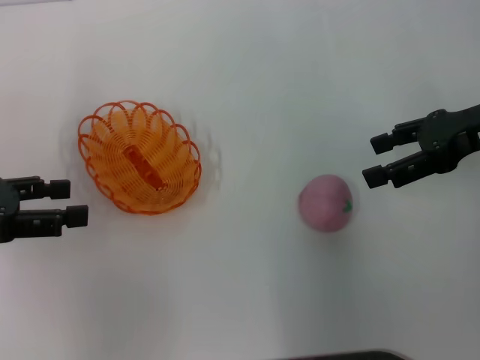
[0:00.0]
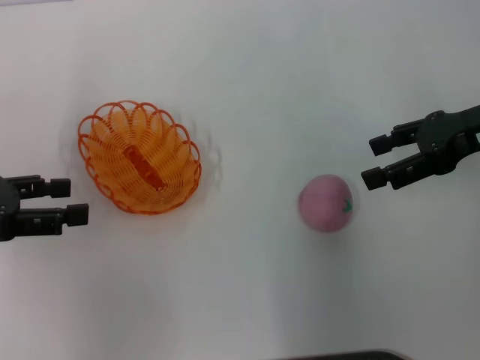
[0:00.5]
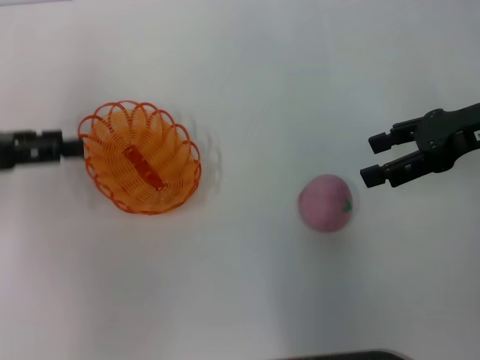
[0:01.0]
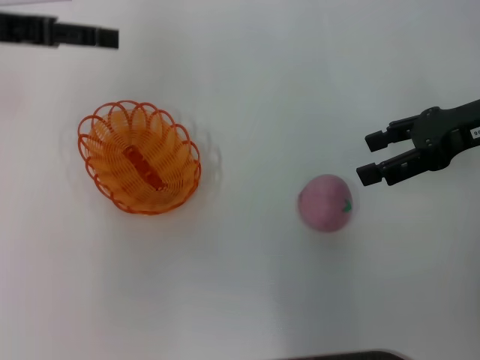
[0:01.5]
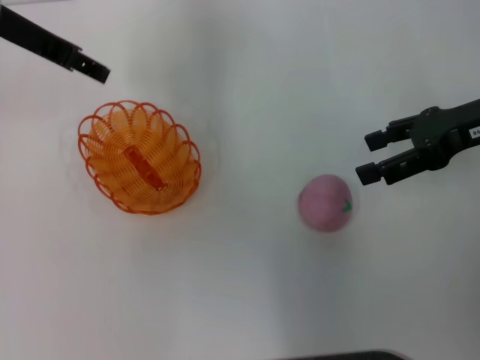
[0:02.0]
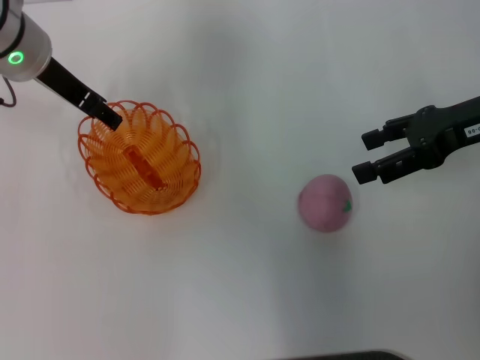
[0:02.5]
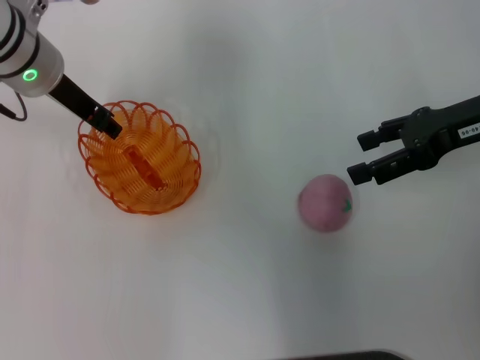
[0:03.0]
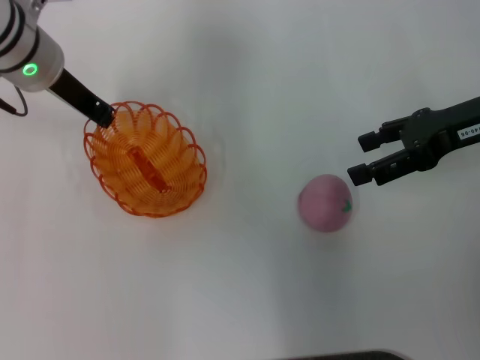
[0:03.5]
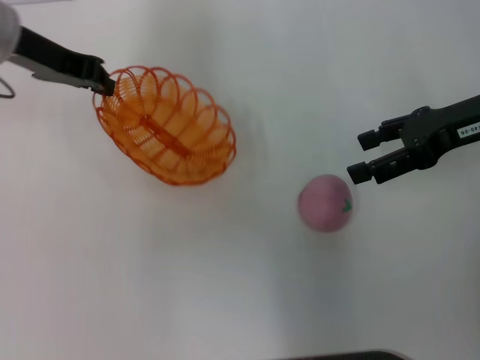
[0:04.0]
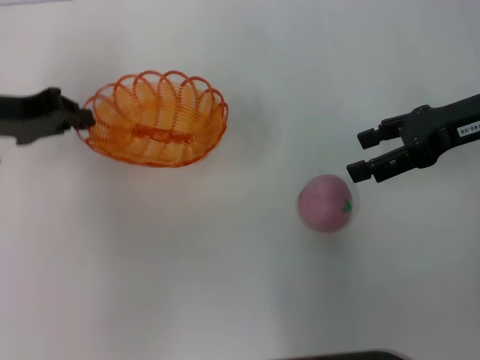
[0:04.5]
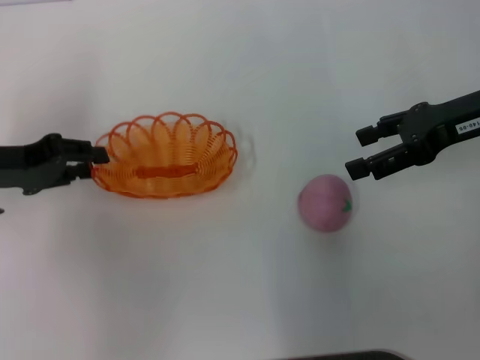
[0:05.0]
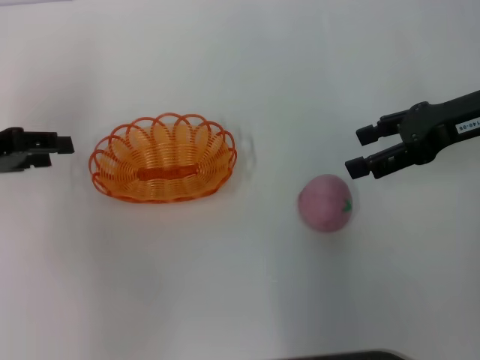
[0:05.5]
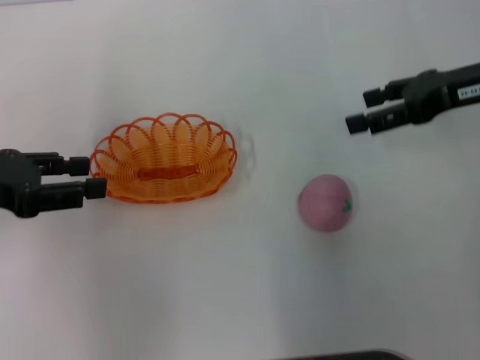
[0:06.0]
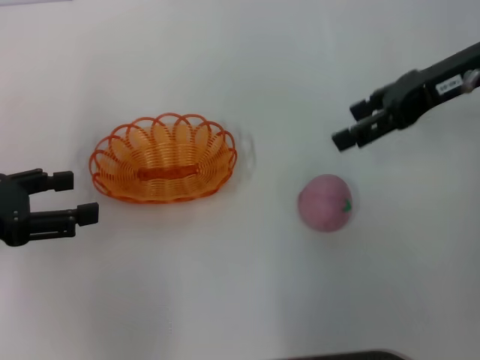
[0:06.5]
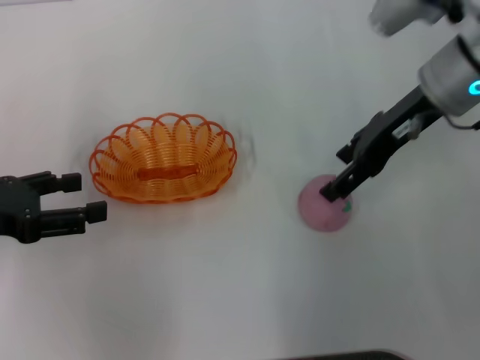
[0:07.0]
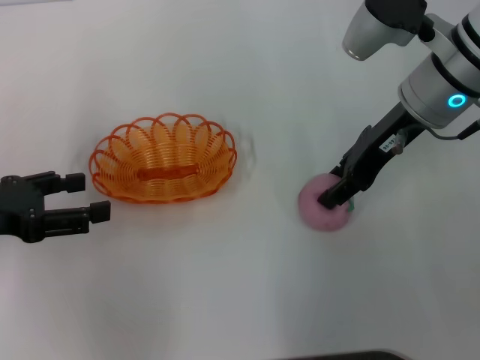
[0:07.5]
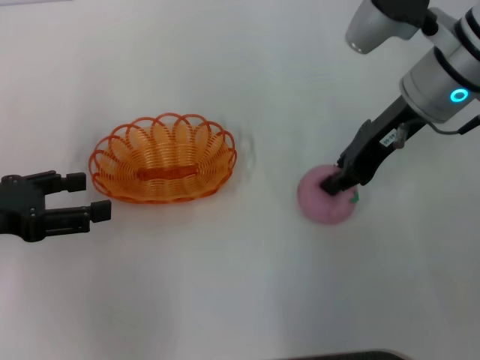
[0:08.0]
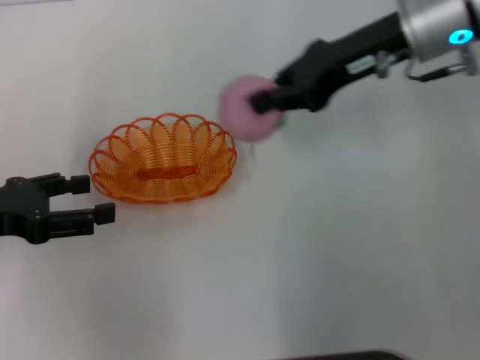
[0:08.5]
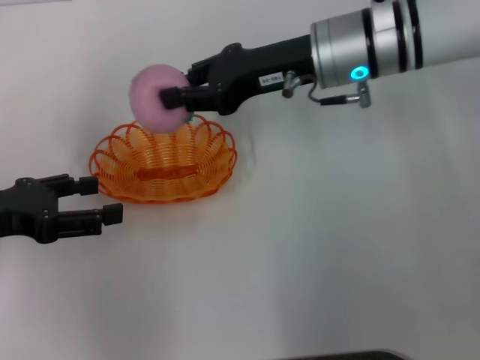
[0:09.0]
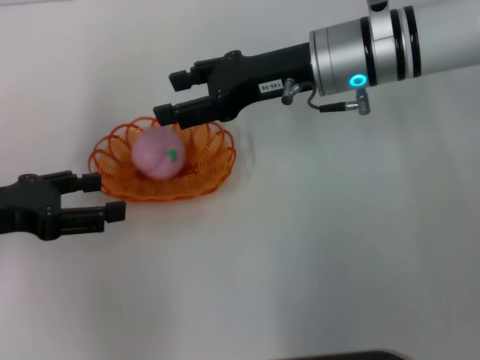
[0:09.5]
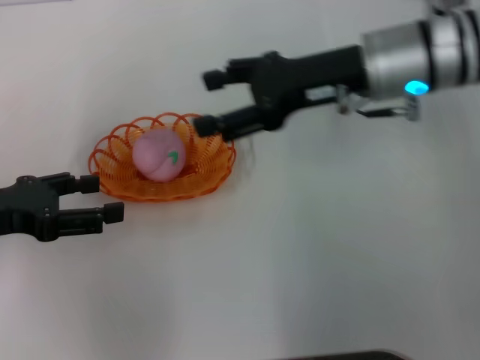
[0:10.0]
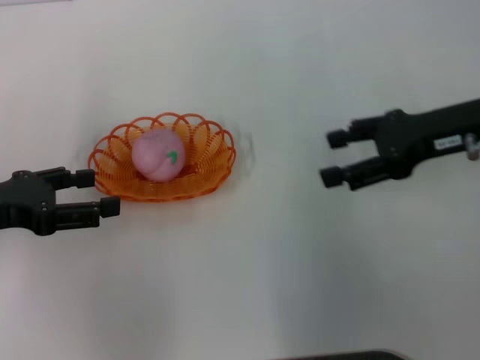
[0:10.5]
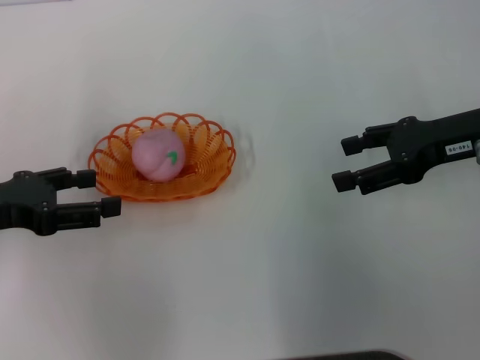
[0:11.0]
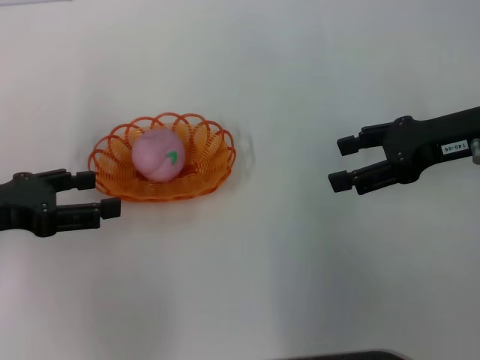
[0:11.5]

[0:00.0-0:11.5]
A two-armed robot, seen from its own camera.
Step, 0:00.0 to 0:03.5: Pick up the basket with the left gripper.
Step, 0:04.0 to 0:05.0: Place the basket in the center of view with the left gripper.
Step, 0:05.5 to 0:08.0: Pick up the peach with the right gripper.
Step, 0:08.5 to 0:09.5: Place the peach into the basket with the right gripper.
0:00.0 to 0:02.0: The left gripper moves forward, to the right and upward, about 20 cm.
0:02.0 to 0:04.0: The left gripper closes its fingers.
0:04.0 to 0:06.0: The left gripper shifts some 15 cm backward and to the left, and opens up.
0:06.0 to 0:07.5: The right gripper travels to the left by some 10 cm.
0:07.5 to 0:09.5: The right gripper travels to the left by approximately 5 cm, and closes up.
0:09.5 to 0:11.5: The right gripper moves to the right and backward, roughly 15 cm, and opens up.
